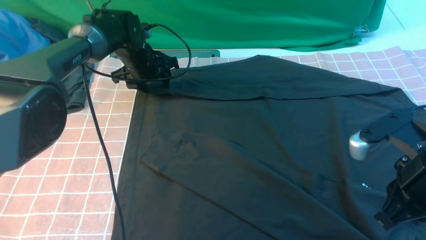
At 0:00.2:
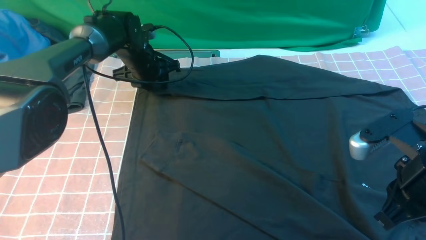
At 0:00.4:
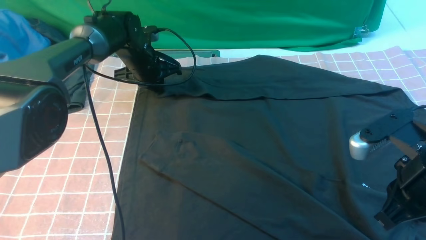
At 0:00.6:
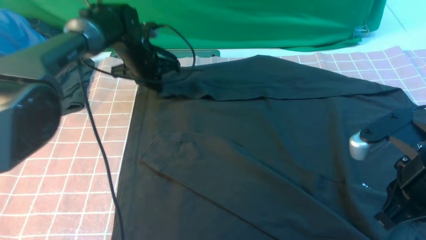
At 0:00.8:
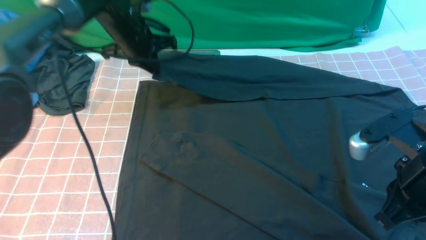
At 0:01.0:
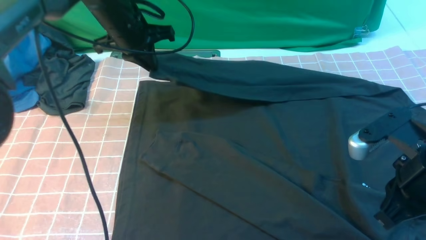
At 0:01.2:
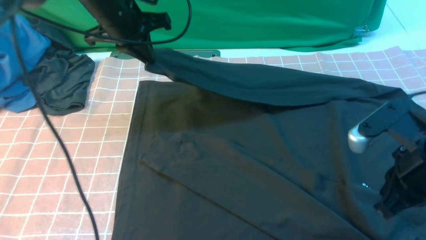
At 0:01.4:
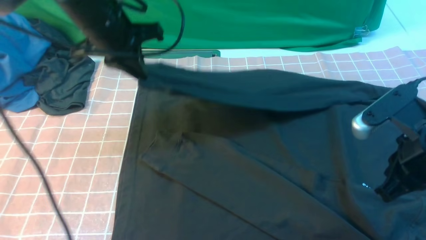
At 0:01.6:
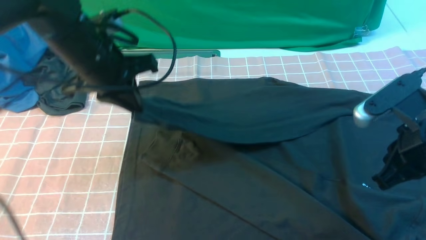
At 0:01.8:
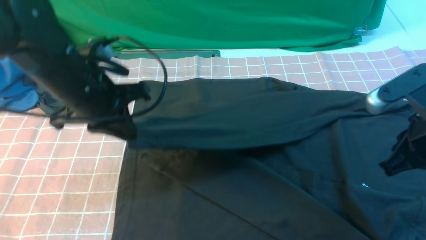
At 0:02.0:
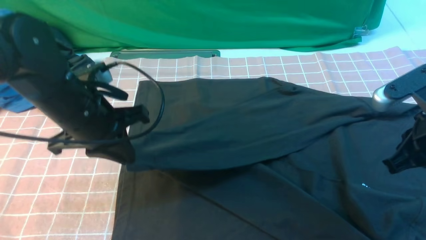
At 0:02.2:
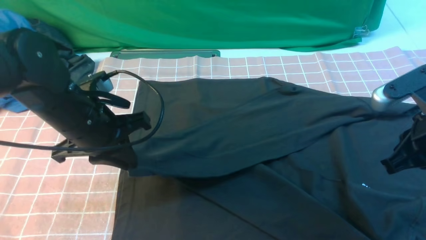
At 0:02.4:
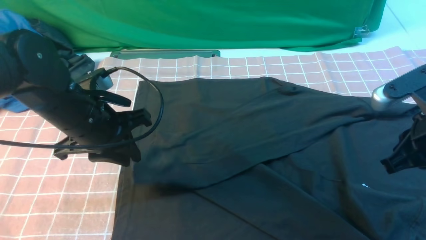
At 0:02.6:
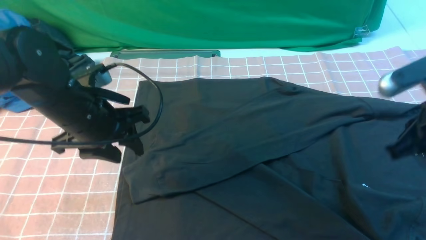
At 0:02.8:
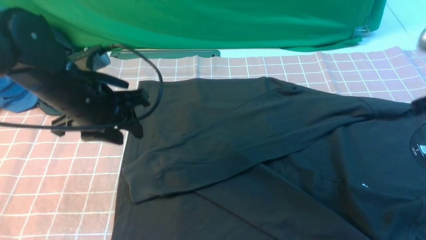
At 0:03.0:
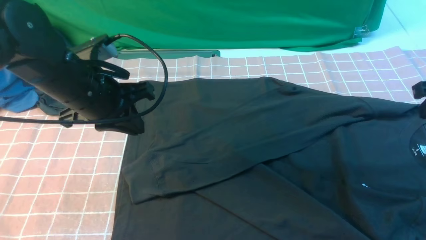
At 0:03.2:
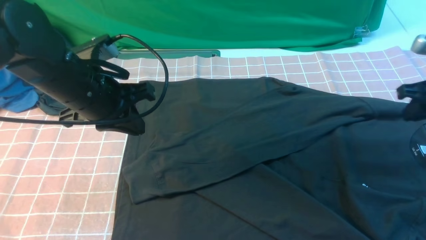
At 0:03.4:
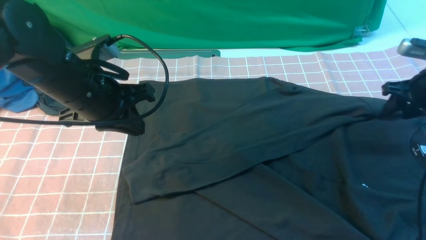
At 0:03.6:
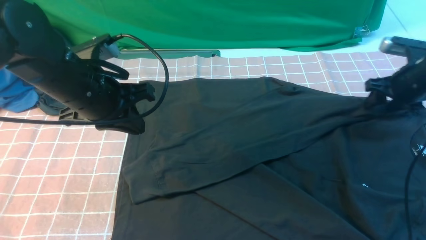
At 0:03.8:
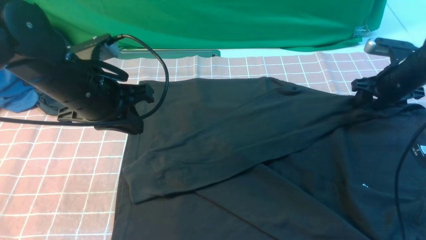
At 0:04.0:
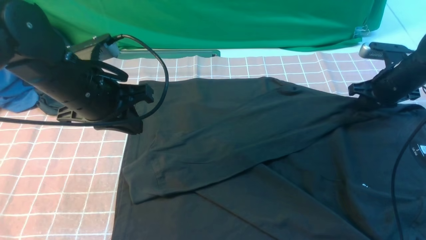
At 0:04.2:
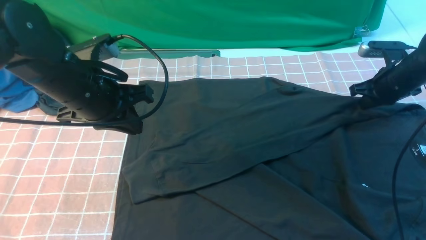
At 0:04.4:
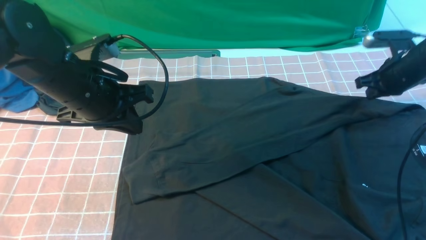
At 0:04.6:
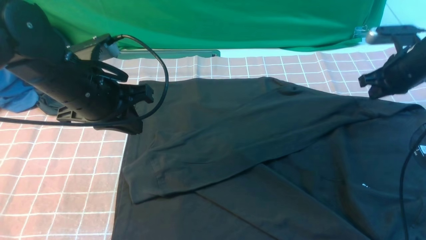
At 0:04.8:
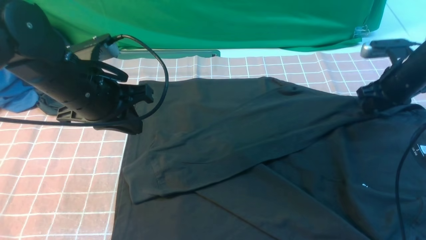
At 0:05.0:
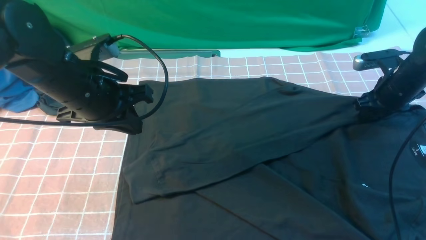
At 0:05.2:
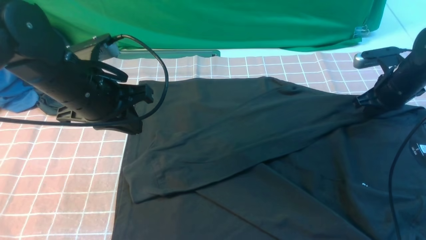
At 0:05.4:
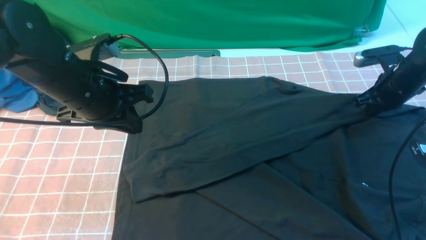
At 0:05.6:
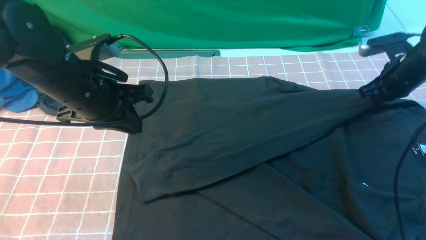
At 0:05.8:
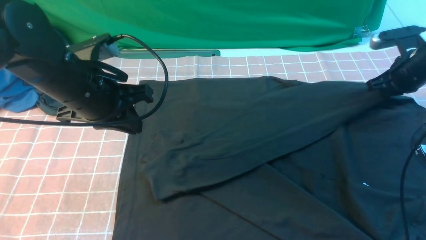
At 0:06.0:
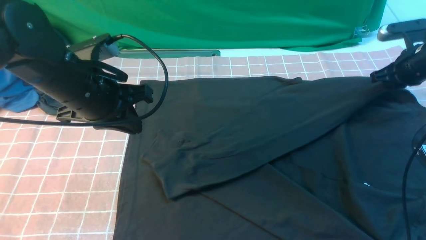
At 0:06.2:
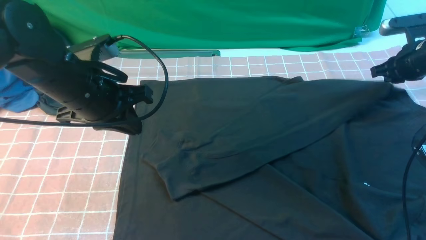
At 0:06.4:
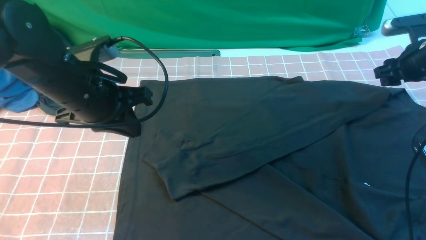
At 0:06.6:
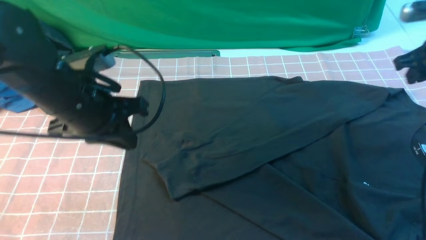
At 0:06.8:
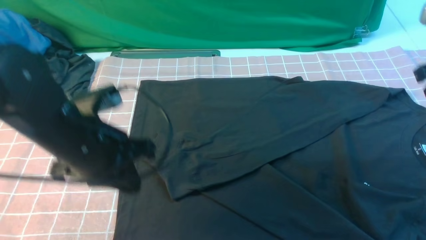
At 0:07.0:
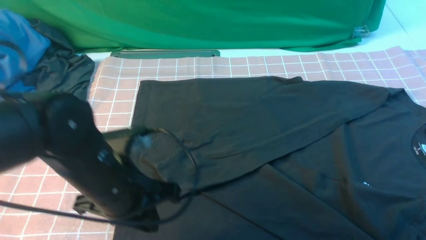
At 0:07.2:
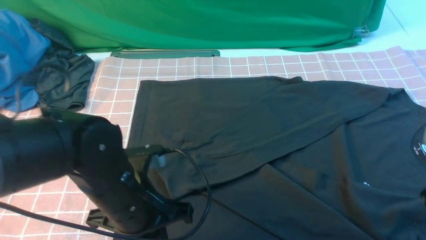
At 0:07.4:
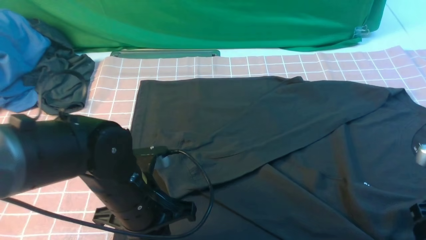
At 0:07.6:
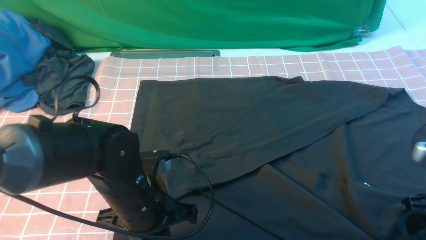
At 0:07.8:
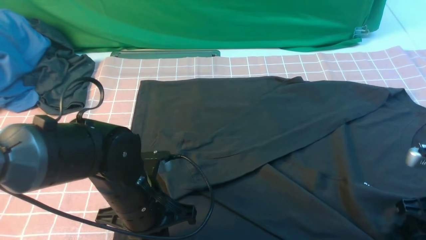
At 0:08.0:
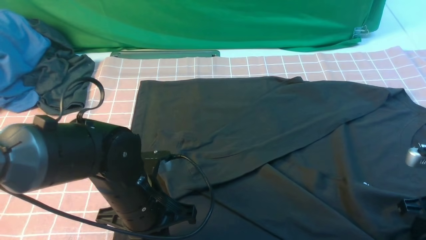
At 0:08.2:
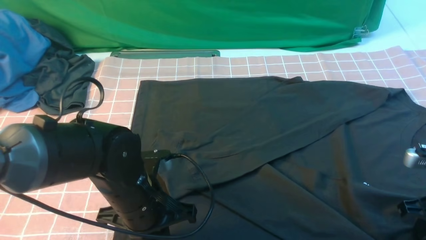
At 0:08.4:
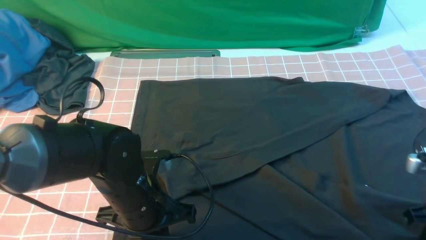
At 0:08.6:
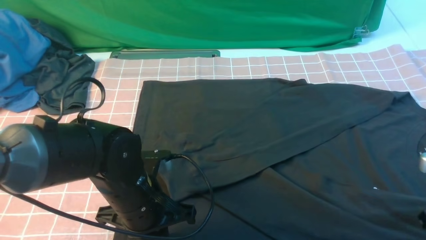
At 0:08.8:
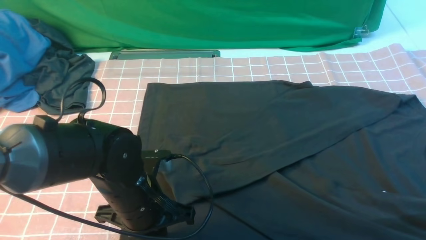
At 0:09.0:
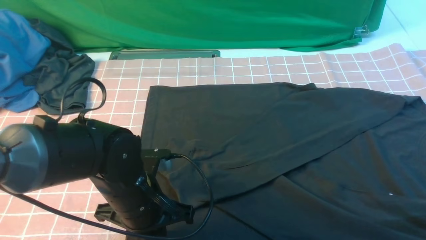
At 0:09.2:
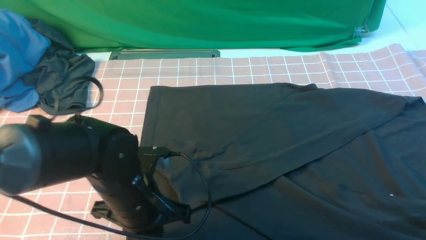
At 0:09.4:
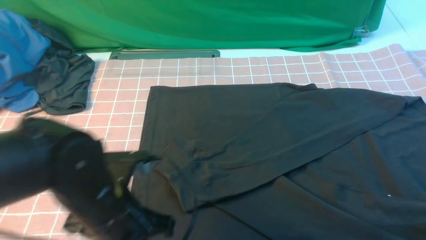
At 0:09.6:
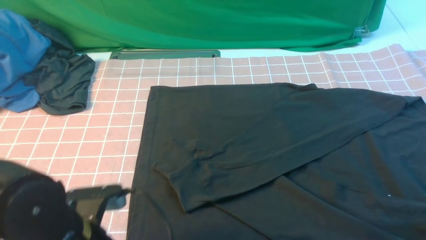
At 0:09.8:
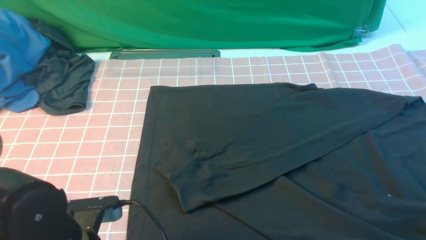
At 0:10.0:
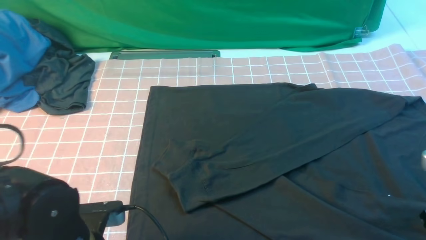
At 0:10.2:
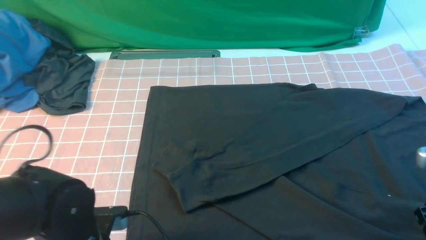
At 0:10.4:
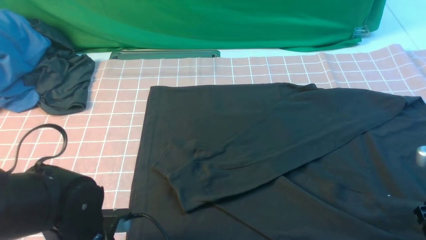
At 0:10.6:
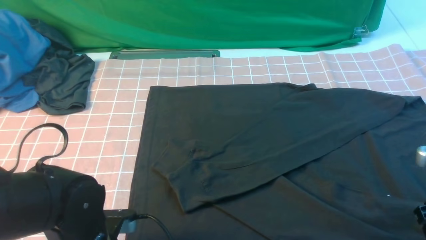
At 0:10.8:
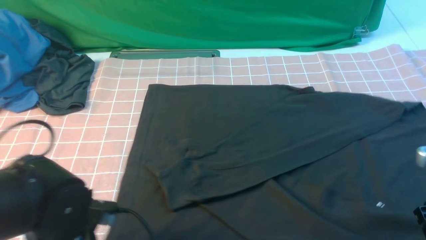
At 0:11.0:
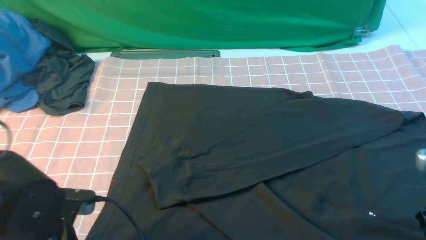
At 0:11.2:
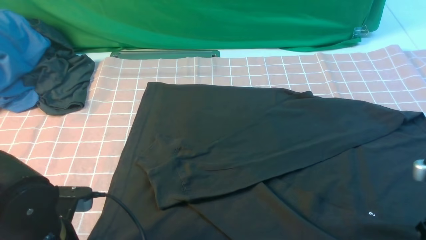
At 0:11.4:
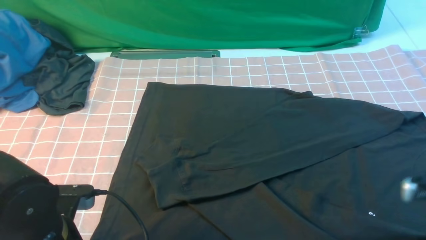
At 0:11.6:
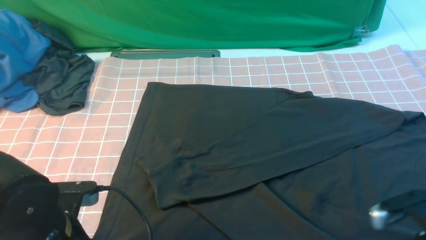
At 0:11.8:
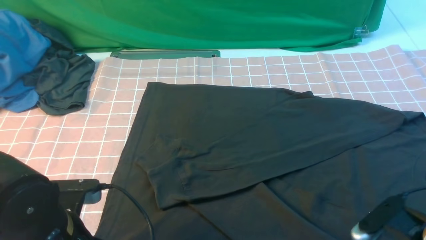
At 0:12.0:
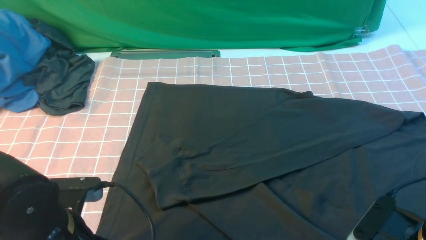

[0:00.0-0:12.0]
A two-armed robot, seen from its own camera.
Step, 0:00.8 to 0:02.8: use the left arm to drag and drop the cuff onto the cuff closest to the left arm.
0:00.0 to 0:01.6: The left gripper moves backward and upward, some 20 cm, and closes up.
0:01.6 to 0:03.0: The right gripper is displaced to the right and forward by roughly 15 cm; the left gripper opens, then closes again.
0:03.0 to 0:04.4: The right gripper goes approximately 15 cm forward and downward, and opens, then closes again.
0:04.4 to 0:06.0: The right gripper opens, then closes once more.
0:06.0 to 0:07.6: The left gripper goes approximately 15 cm downward, backward and to the right; the right gripper goes some 25 cm backward, and opens up.
0:07.6 to 0:09.0: The right gripper closes up.
0:09.0 to 0:10.4: The right gripper opens up. Meanwhile the left gripper moves backward, roughly 10 cm, and opens.
0:10.4 to 0:12.0: The right gripper is displaced to the left and backward by some 10 cm; the left gripper moves about 5 cm, and closes.

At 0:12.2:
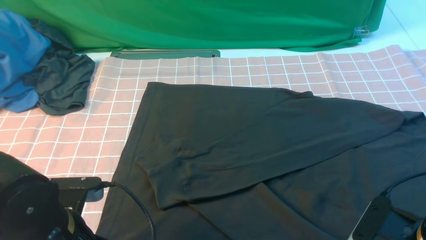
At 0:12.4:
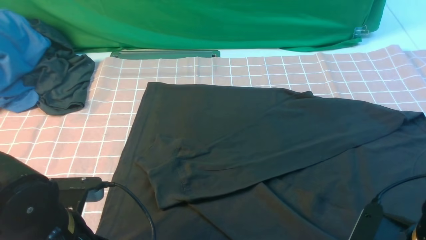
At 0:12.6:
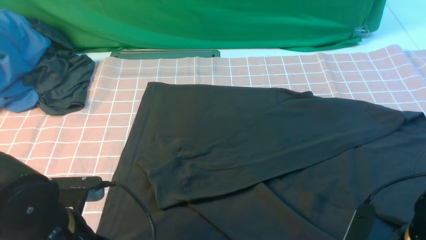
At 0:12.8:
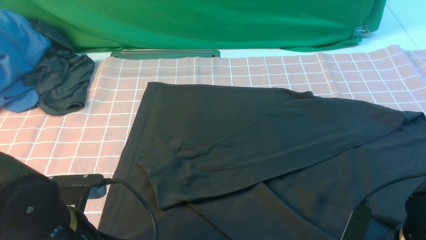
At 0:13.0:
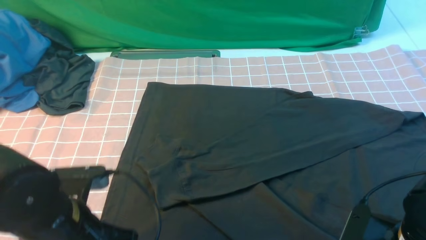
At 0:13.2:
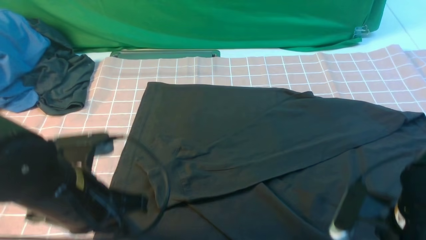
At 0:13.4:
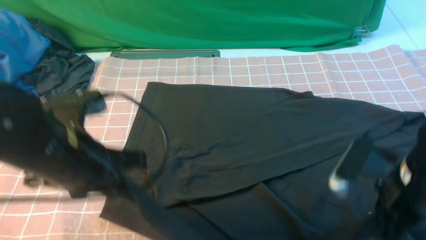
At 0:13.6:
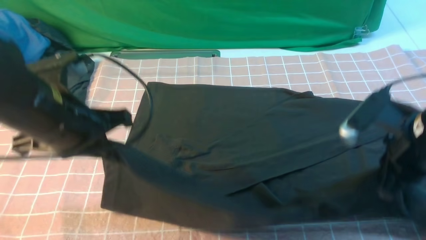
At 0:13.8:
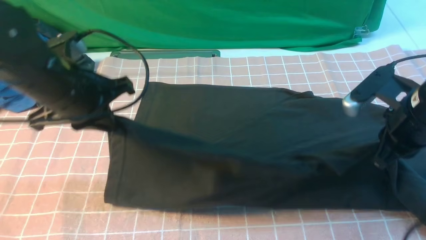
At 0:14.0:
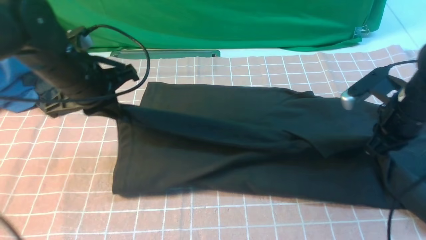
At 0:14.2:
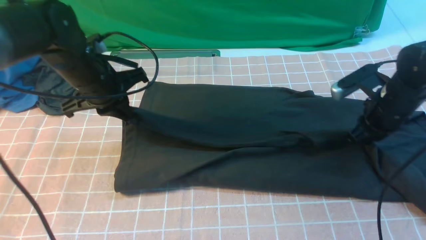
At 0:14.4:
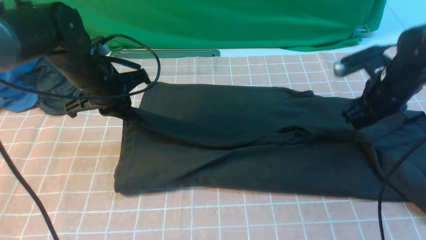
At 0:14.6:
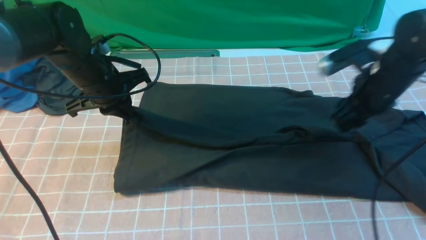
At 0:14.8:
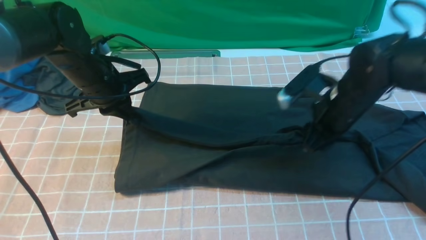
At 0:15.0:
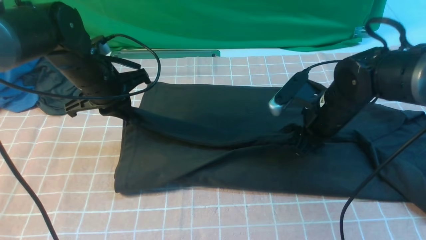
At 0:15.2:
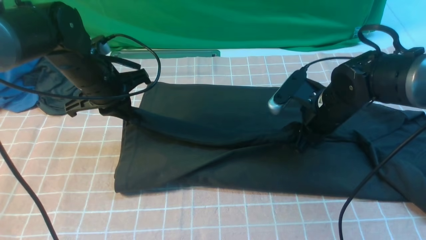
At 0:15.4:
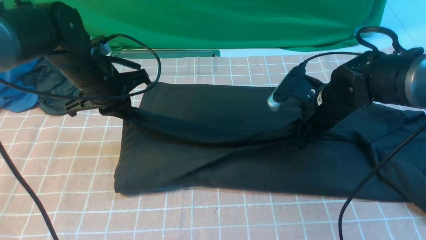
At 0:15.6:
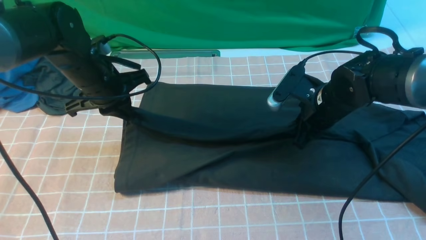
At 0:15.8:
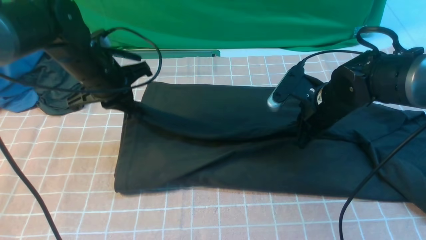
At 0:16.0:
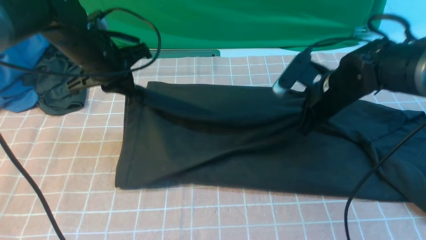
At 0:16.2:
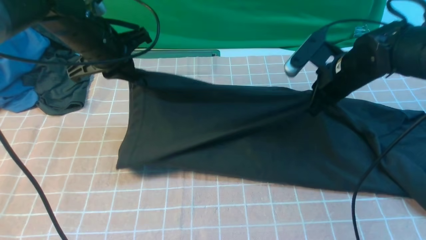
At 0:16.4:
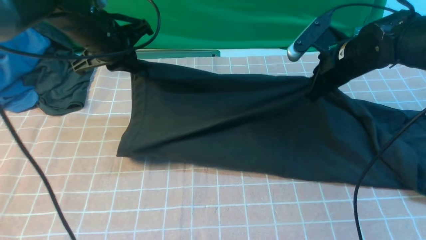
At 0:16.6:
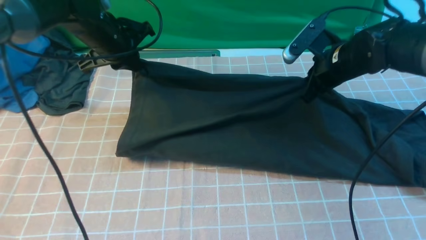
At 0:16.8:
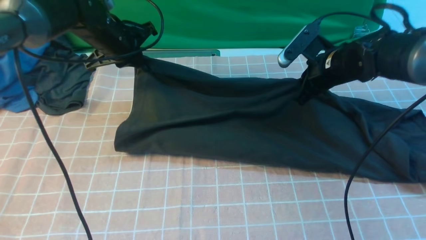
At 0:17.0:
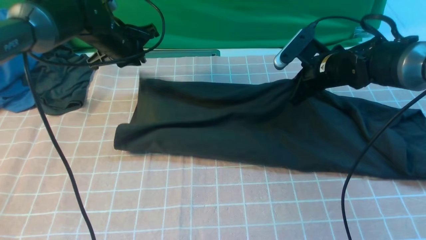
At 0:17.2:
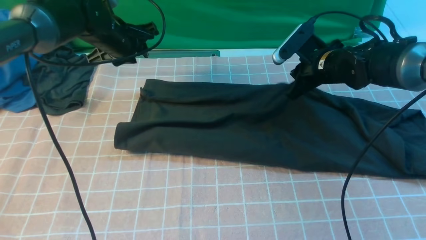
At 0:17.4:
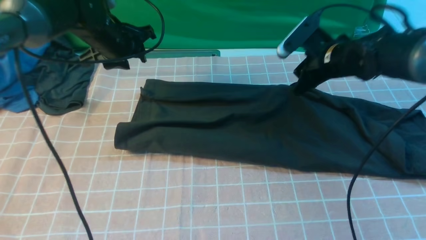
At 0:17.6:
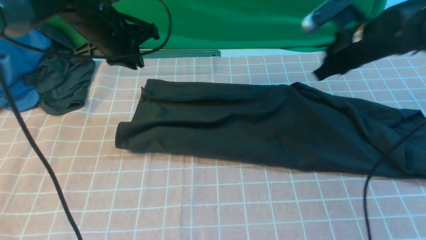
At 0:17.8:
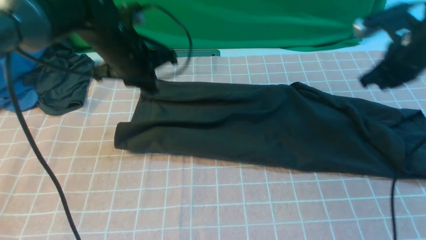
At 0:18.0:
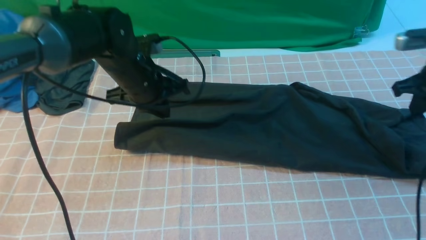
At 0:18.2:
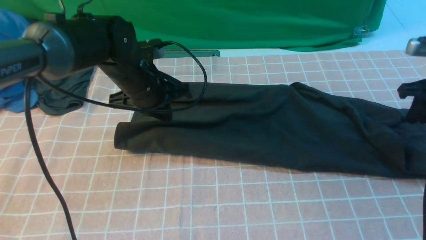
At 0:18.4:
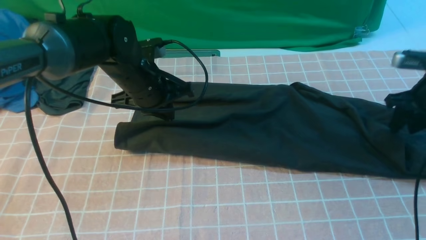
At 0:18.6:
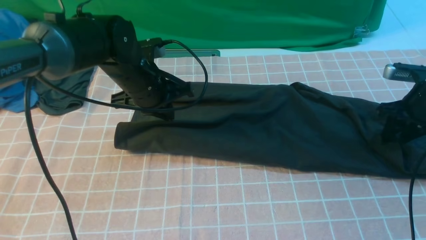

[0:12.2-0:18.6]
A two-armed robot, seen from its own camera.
0:12.2 to 0:13.8: Both grippers move forward and upward, about 15 cm. The right gripper closes its fingers.
0:13.8 to 0:15.4: The right gripper travels to the left, forward and downward by approximately 15 cm, and opens up. The left gripper is displaced forward and downward by about 10 cm.
0:15.4 to 0:17.0: The two grippers go roughly 10 cm forward. The right gripper closes its fingers.
0:17.0 to 0:18.6: The left gripper shifts about 10 cm backward and to the right. The right gripper shifts approximately 15 cm to the right.
